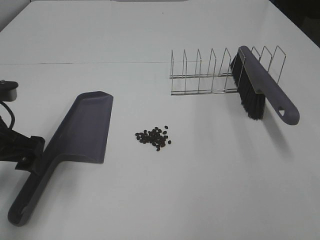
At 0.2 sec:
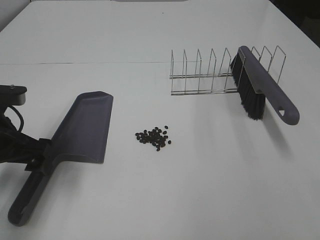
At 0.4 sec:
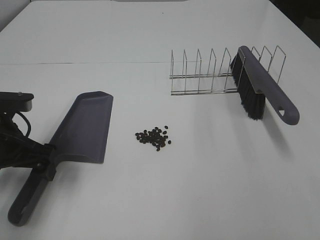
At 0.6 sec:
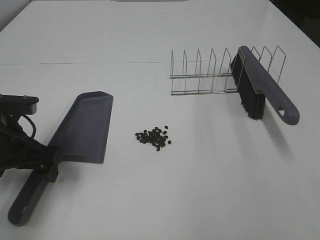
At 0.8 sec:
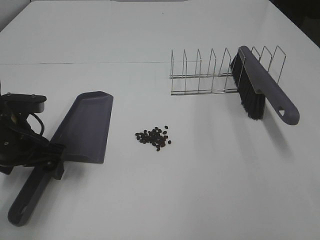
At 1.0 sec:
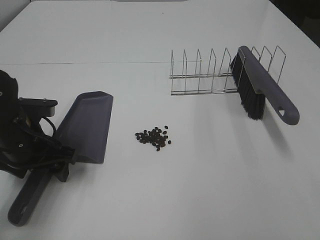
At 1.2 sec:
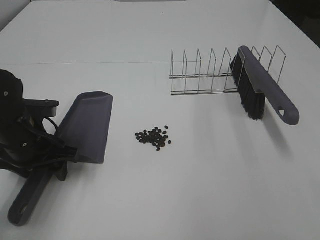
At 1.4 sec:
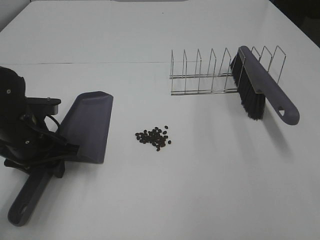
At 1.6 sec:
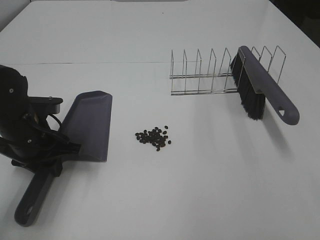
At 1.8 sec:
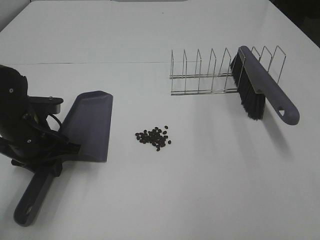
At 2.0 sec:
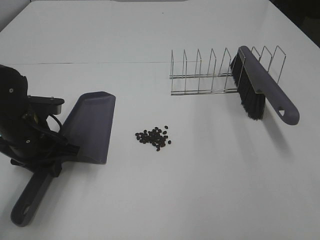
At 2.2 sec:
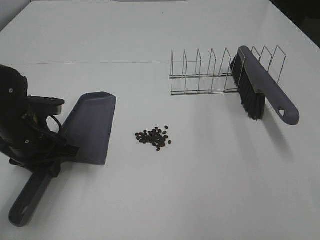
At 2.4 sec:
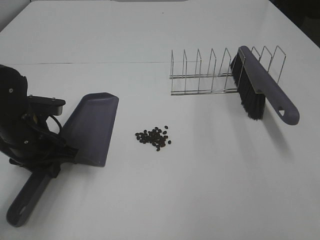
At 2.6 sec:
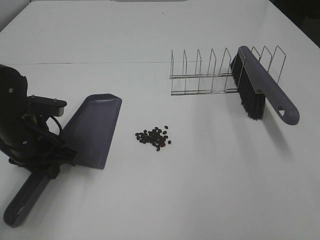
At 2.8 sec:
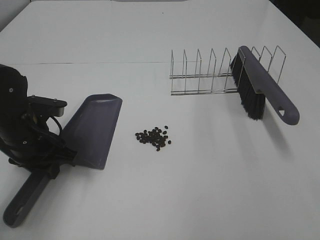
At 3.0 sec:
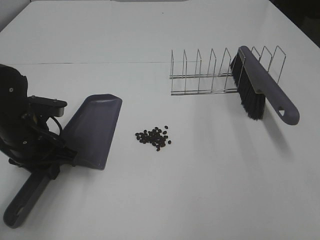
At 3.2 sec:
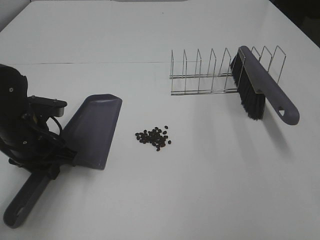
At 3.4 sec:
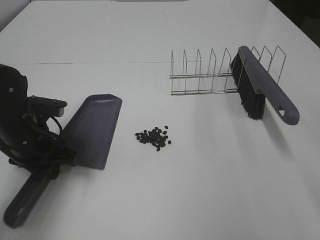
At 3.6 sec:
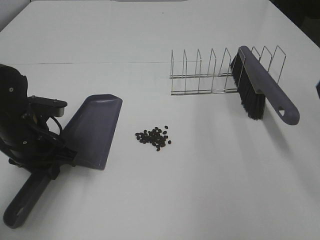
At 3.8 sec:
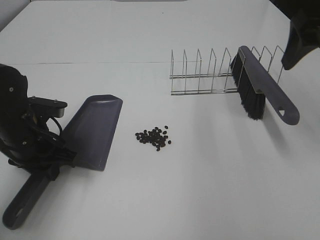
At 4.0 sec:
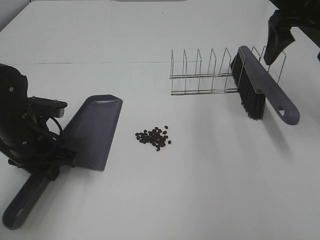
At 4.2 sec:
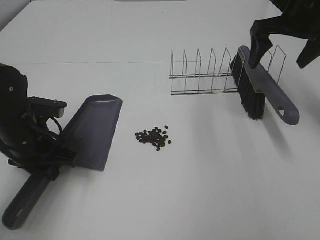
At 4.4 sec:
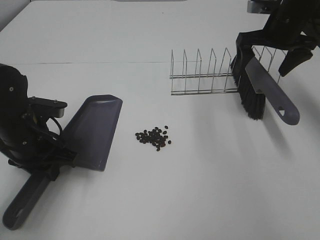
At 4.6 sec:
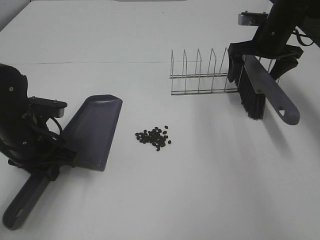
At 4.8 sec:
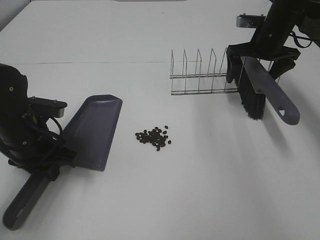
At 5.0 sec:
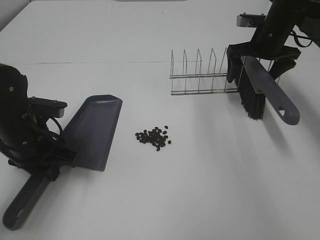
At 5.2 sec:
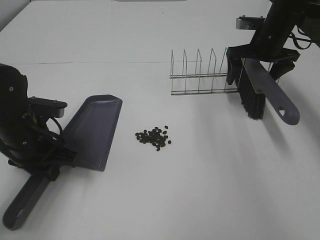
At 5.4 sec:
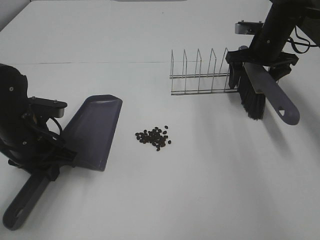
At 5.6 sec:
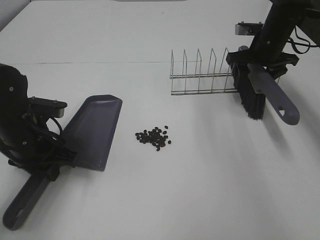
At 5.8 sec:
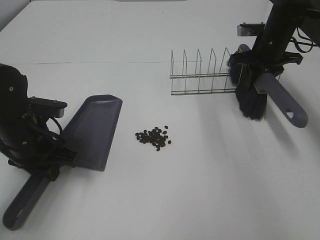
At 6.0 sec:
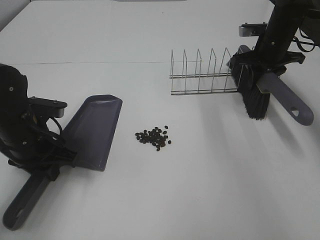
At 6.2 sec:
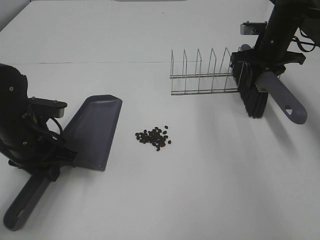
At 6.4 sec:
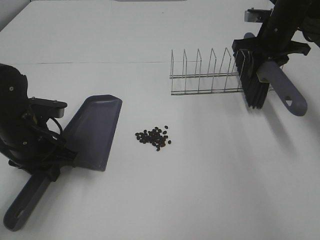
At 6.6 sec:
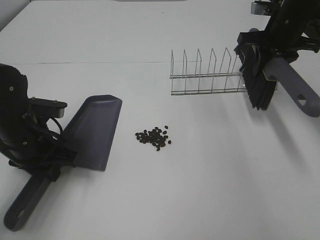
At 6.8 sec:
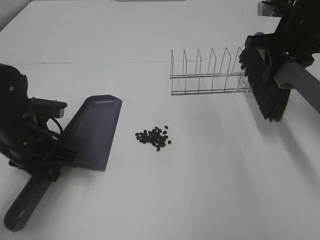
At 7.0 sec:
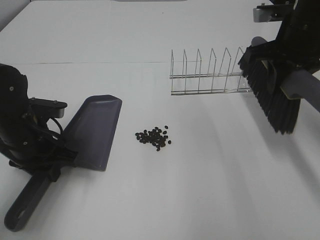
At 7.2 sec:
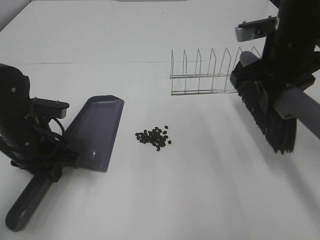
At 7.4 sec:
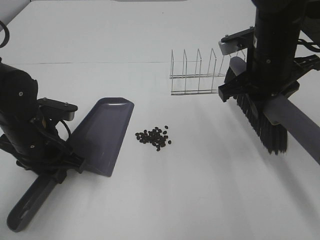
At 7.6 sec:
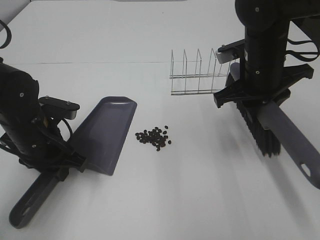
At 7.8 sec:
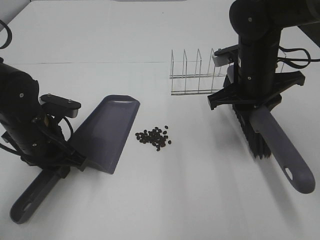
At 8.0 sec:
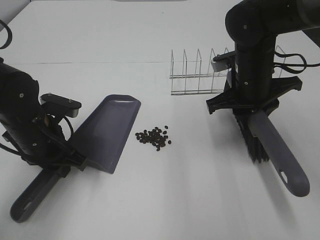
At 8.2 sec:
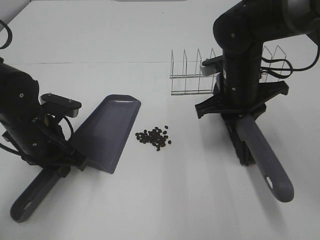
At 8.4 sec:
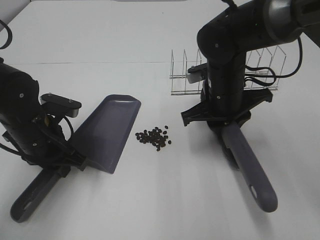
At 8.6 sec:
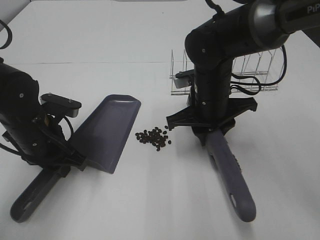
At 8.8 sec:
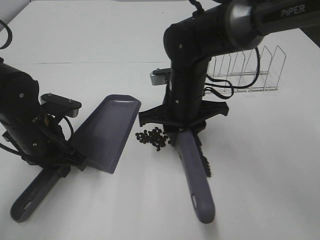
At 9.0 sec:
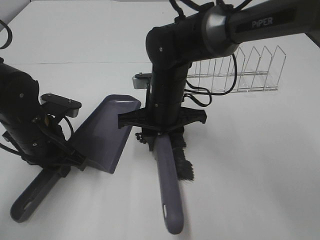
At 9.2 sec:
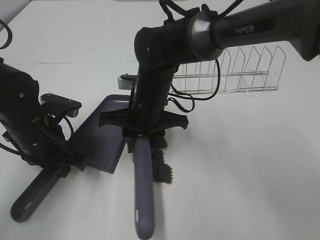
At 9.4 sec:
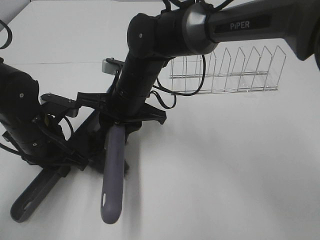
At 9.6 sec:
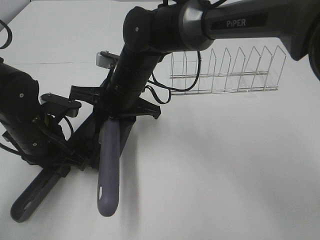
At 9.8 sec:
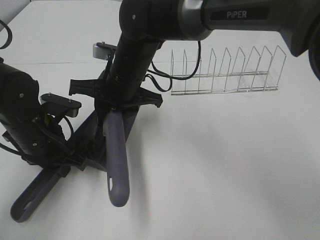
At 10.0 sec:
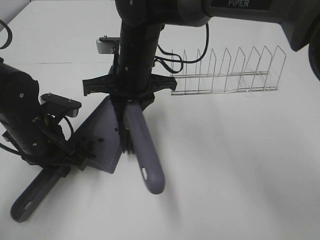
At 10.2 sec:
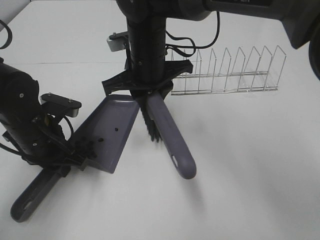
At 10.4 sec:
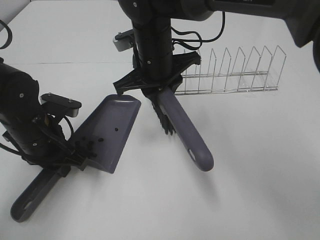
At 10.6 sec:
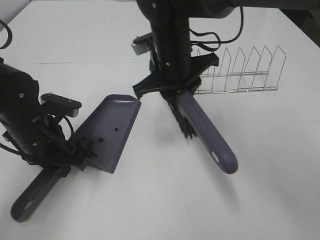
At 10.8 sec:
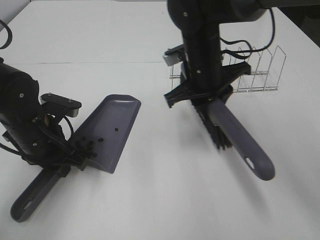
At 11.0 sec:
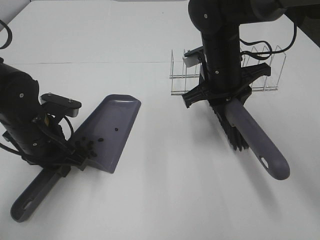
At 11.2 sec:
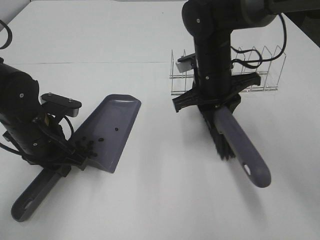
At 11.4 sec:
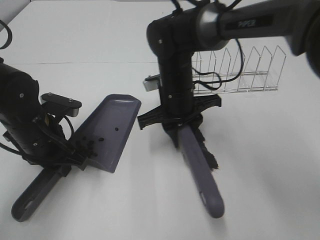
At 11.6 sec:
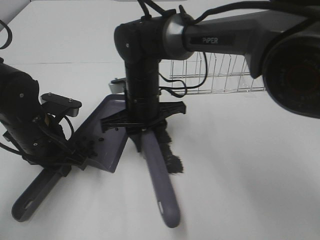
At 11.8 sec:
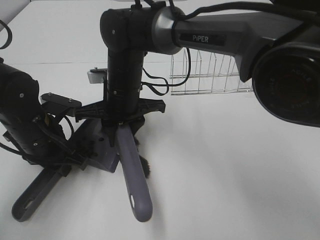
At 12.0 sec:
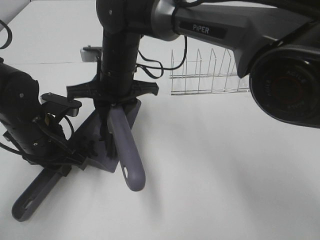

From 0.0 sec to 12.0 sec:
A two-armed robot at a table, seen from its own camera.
Task of the whole recording: Sweep Coffee Bean.
Step, from 3.0 sec to 6.0 sec: Right hand:grab the broom.
Step, from 6.2 sec to 12.0 sec: Right hand:sweep the coffee beans into the dustpan.
From 0.0 sec to 1.6 sec: The left gripper is displaced downward by approximately 5 cm, and closes.
From 1.6 sec to 3.0 sec: There are only small adjustments of the grippers.
From 3.0 sec to 4.4 sec: The right gripper heads forward, covering some 40 cm.
From 4.4 sec to 6.0 sec: The right gripper shifts some 5 cm downward, and closes.
From 6.0 sec to 7.6 sec: The right gripper travels backward and to the left by roughly 20 cm.
From 7.6 sec to 9.0 sec: The right gripper goes approximately 15 cm to the left and downward.
From 9.0 sec to 10.4 sec: The right gripper travels upward by approximately 5 cm.
From 10.4 sec to 12.0 sec: The right gripper is displaced to the left by about 5 cm.

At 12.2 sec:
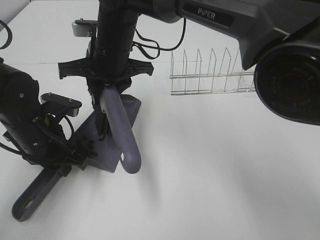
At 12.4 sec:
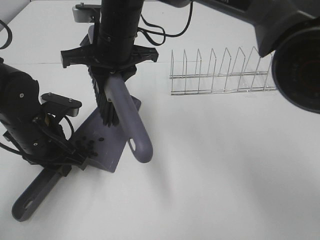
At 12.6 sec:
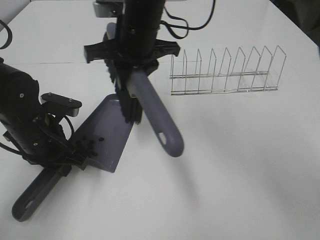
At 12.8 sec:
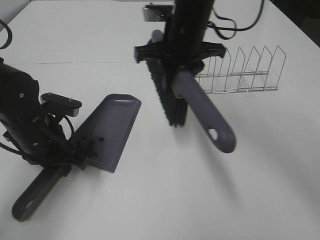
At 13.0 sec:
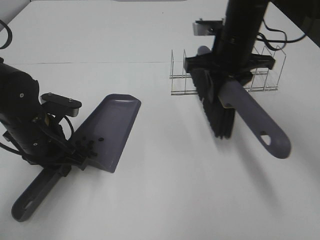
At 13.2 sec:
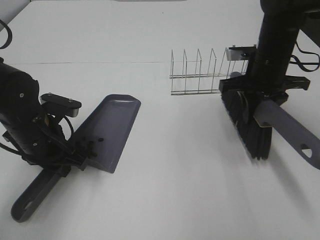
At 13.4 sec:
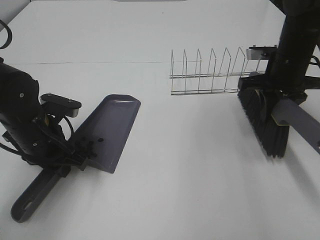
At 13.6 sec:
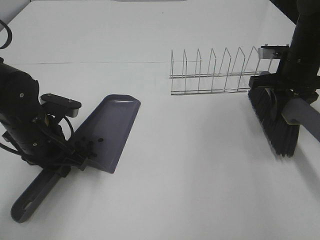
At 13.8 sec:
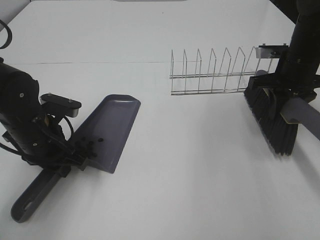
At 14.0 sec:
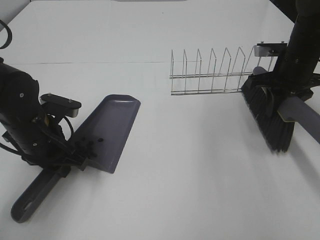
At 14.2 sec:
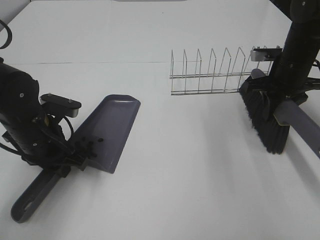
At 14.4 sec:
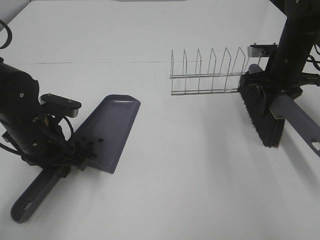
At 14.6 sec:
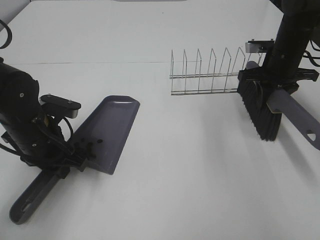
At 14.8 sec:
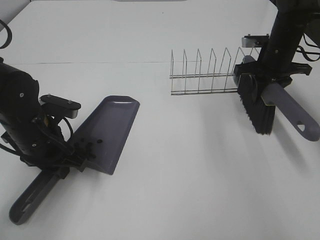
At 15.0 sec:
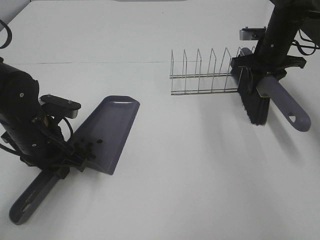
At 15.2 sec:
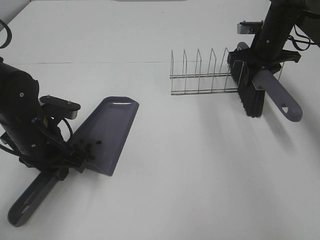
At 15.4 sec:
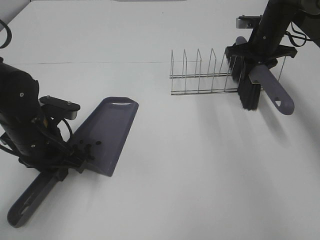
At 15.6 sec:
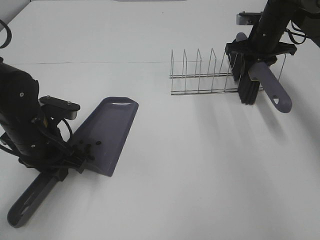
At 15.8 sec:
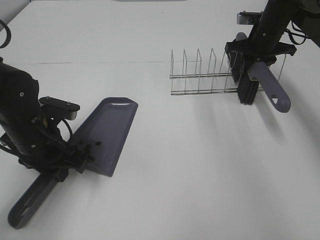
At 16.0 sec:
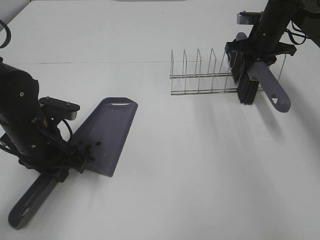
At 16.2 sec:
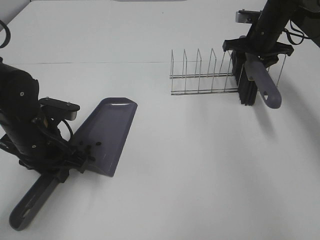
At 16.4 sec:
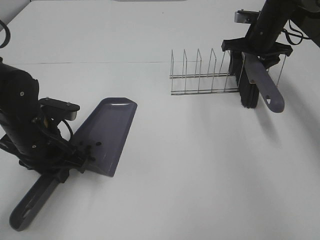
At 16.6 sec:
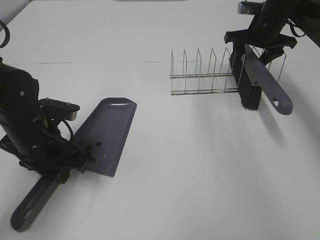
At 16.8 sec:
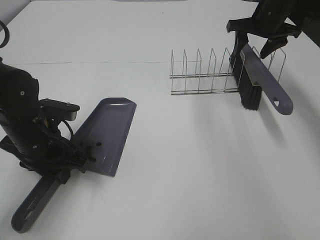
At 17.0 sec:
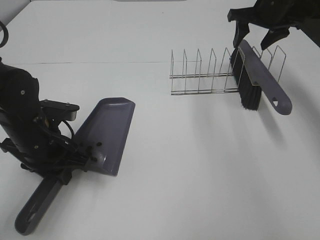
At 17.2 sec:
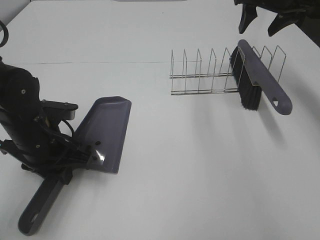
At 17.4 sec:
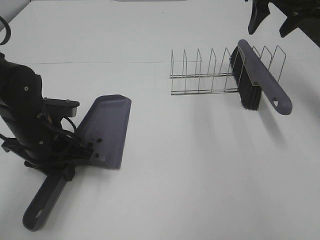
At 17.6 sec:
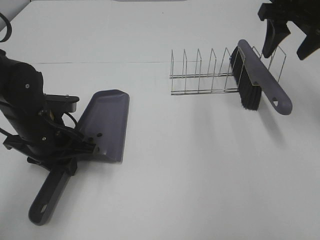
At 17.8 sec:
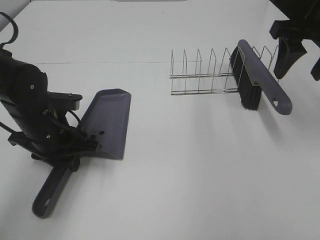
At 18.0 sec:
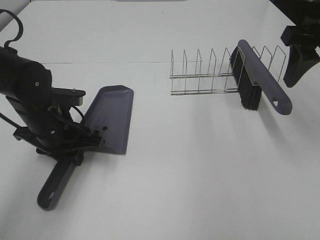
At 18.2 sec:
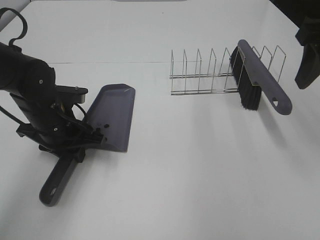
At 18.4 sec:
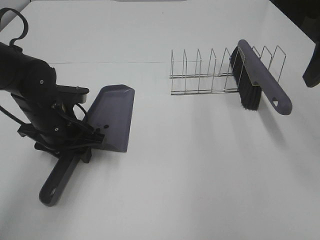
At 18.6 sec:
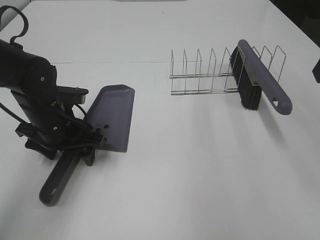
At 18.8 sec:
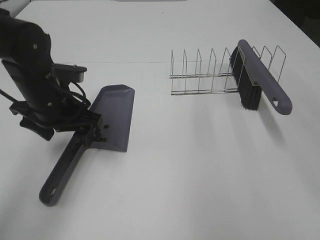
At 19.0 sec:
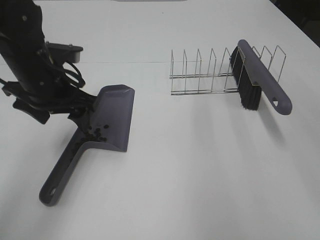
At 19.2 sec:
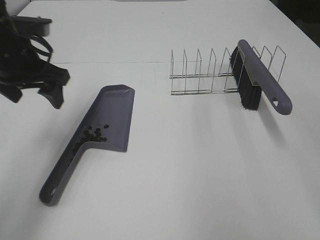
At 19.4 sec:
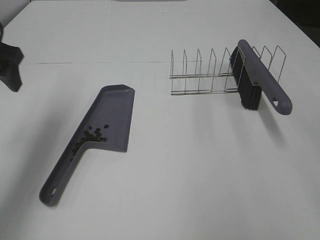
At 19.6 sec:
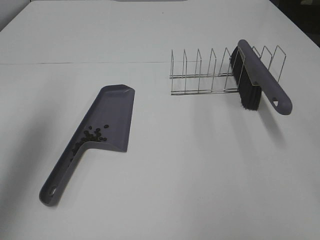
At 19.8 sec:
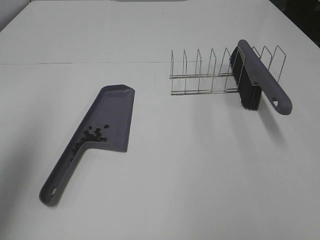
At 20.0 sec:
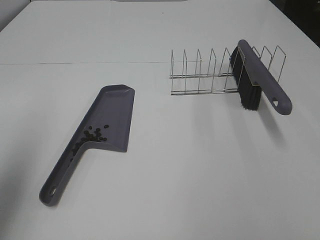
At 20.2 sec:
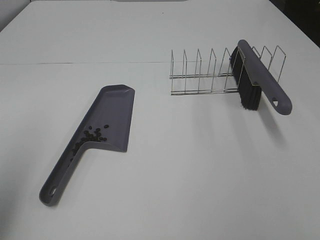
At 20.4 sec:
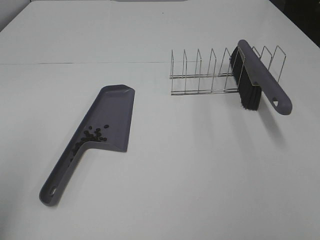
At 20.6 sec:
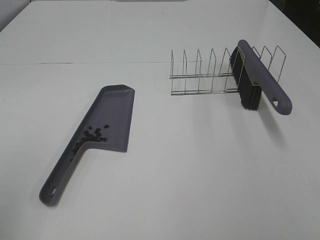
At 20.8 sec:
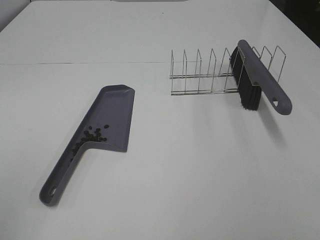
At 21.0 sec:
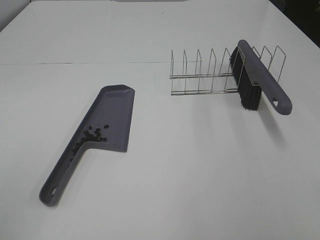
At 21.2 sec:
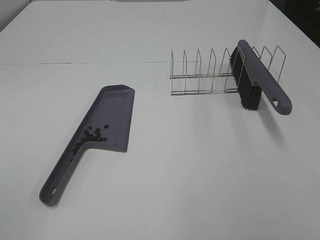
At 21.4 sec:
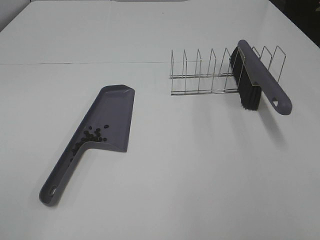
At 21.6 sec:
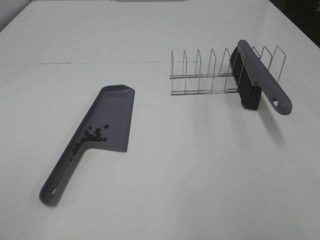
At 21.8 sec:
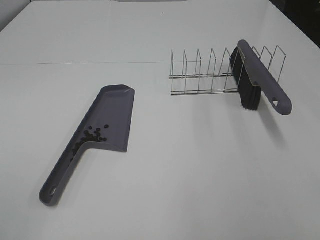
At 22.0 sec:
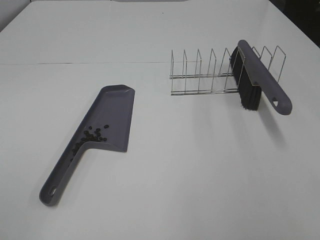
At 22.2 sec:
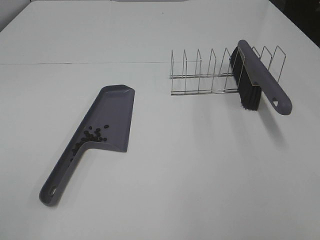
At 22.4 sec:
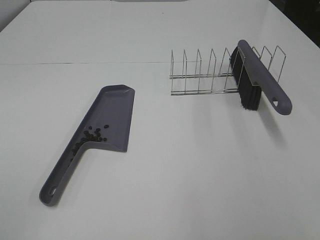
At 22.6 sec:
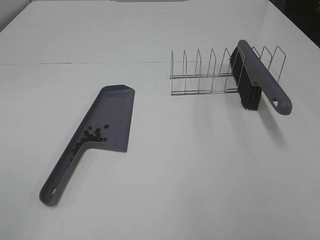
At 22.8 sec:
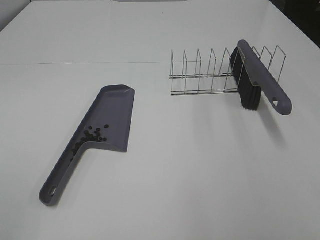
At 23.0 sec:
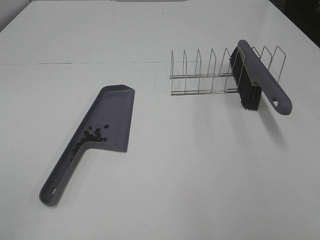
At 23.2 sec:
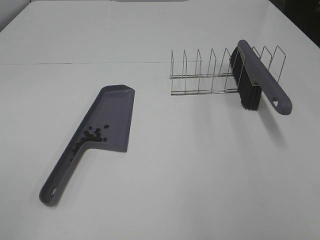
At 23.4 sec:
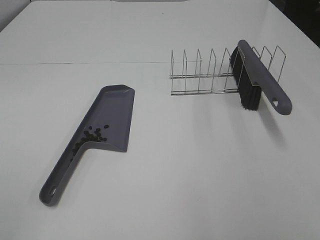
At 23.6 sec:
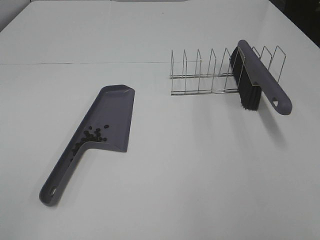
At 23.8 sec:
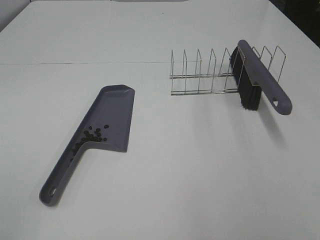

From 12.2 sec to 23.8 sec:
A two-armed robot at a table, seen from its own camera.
Task of the whole recording: Sweep Coffee Bean.
Step, from 12.2 sec to 16.6 sec: Right hand:place the broom on the rack.
From 12.2 sec to 13.6 sec: The right gripper goes roughly 35 cm to the right.
From 13.6 sec to 15.0 sec: The right gripper shifts about 10 cm forward.
From 15.0 sec to 16.6 sec: The right gripper opens its fingers.
From 16.6 sec to 18.0 sec: The right gripper goes about 25 cm backward and upward.
From 18.0 sec to 19.4 sec: The left gripper is displaced upward and to the left by roughly 20 cm, and opens up, while the right gripper is displaced backward by some 20 cm.
From 19.4 sec to 21.0 sec: The left gripper travels backward by about 35 cm.
From 22.4 sec to 23.8 sec: Both grippers stay put.
